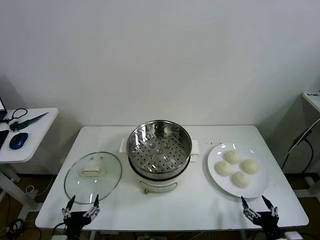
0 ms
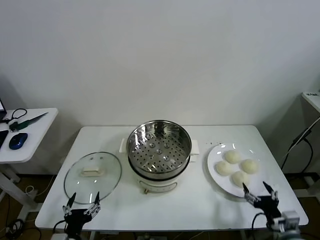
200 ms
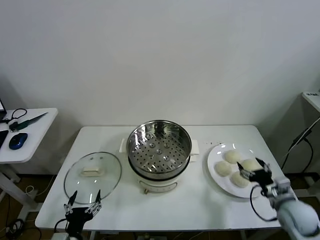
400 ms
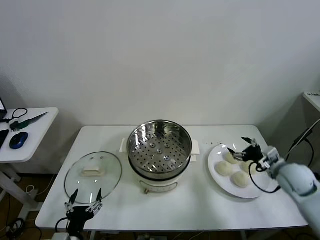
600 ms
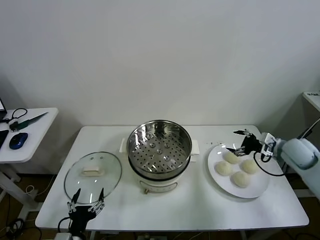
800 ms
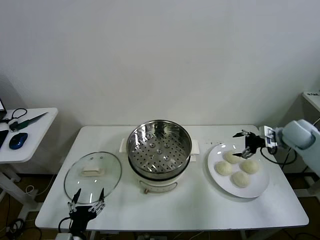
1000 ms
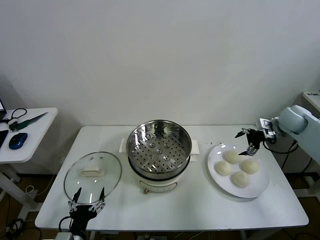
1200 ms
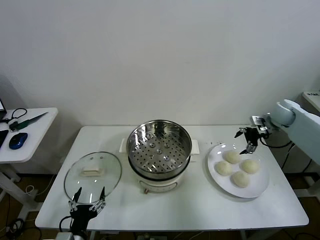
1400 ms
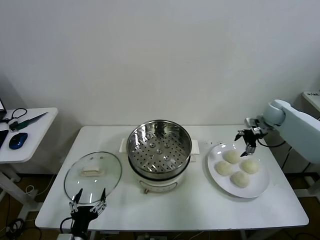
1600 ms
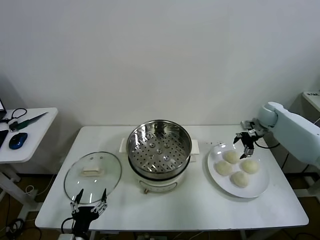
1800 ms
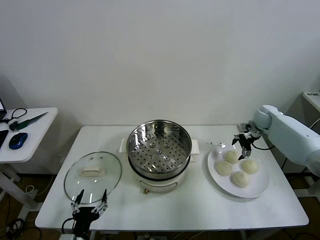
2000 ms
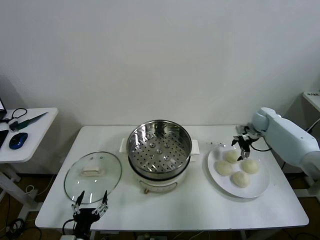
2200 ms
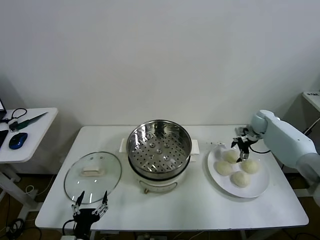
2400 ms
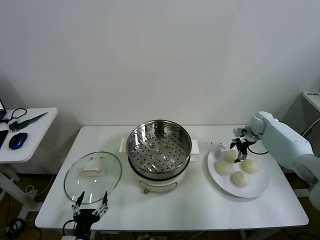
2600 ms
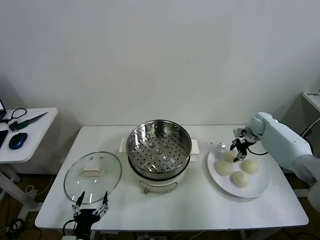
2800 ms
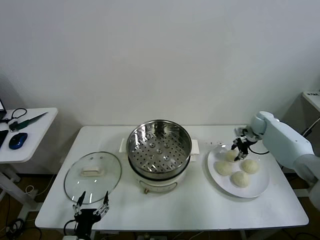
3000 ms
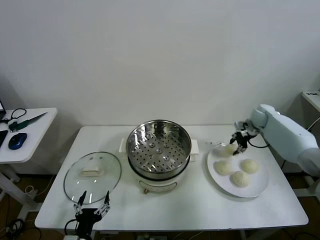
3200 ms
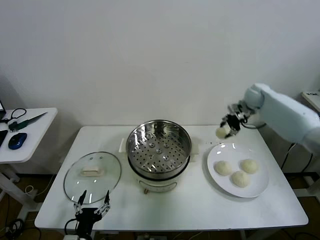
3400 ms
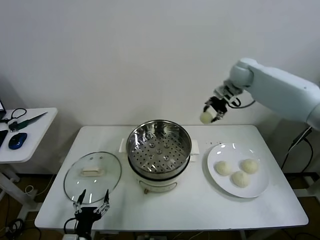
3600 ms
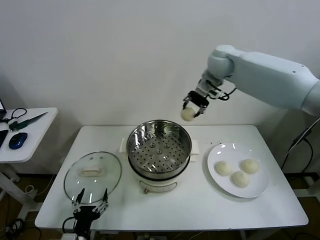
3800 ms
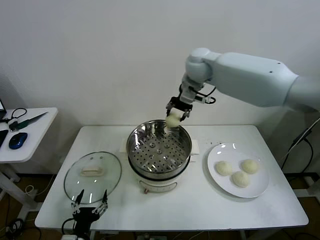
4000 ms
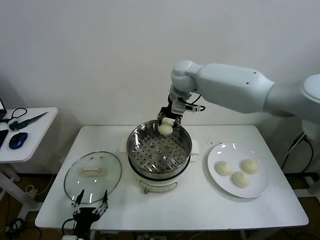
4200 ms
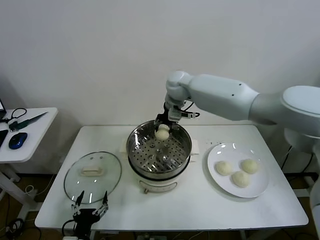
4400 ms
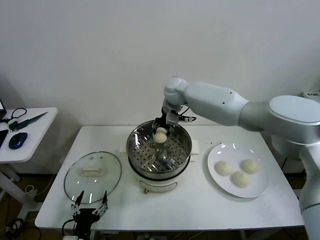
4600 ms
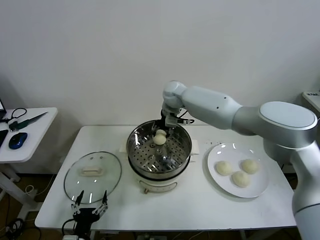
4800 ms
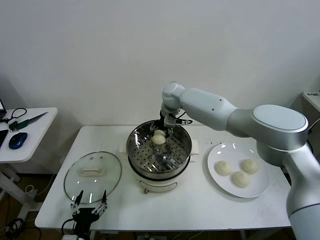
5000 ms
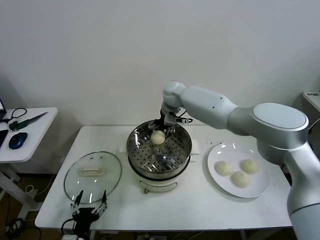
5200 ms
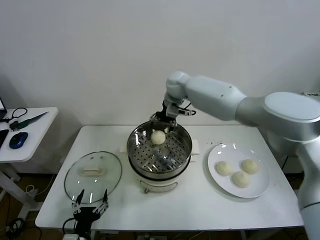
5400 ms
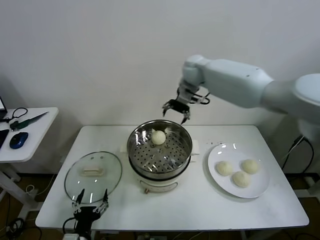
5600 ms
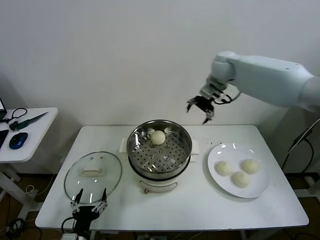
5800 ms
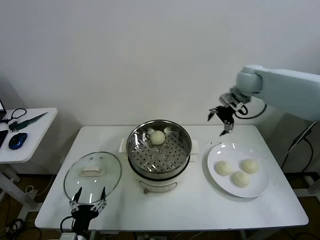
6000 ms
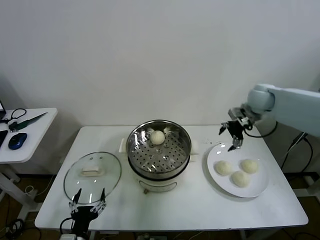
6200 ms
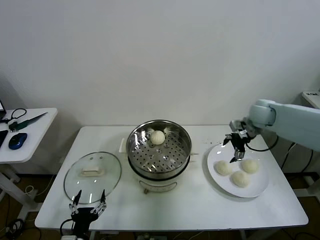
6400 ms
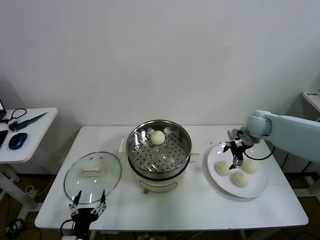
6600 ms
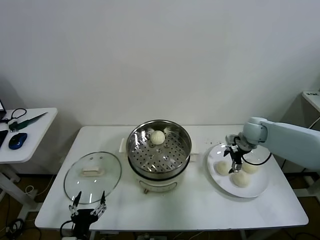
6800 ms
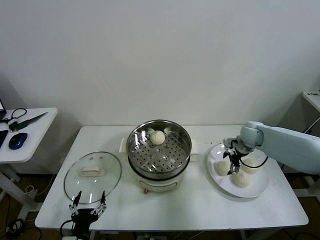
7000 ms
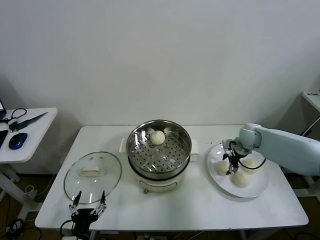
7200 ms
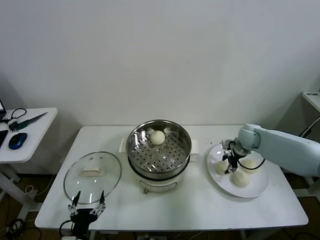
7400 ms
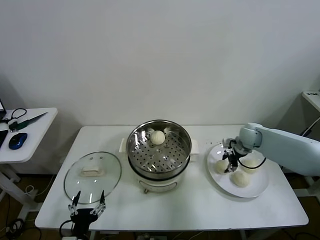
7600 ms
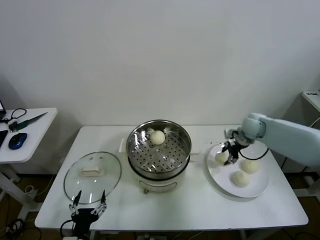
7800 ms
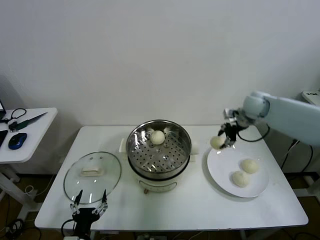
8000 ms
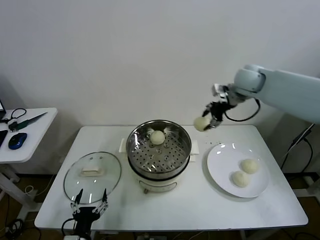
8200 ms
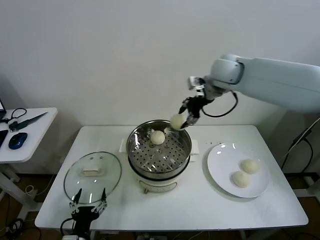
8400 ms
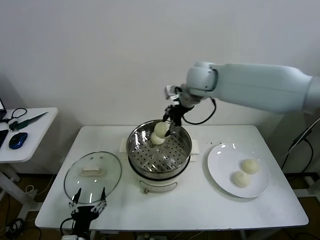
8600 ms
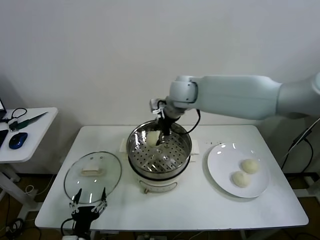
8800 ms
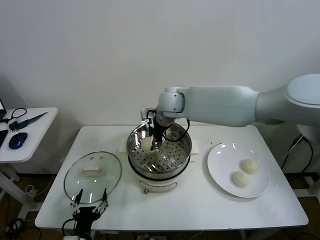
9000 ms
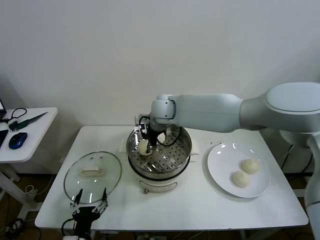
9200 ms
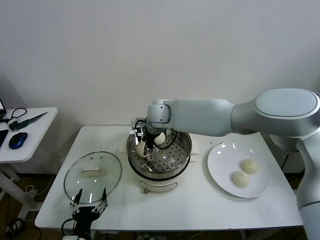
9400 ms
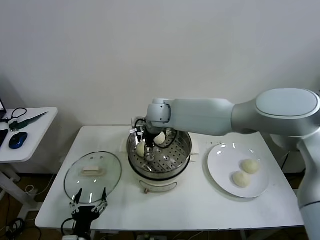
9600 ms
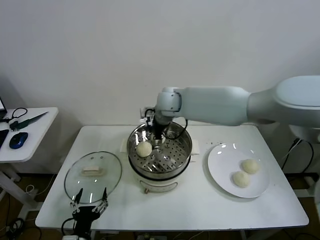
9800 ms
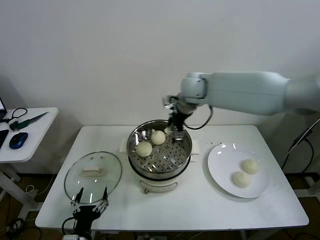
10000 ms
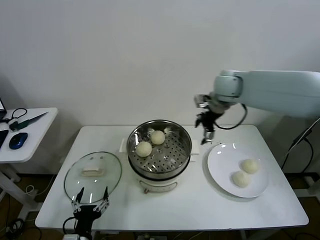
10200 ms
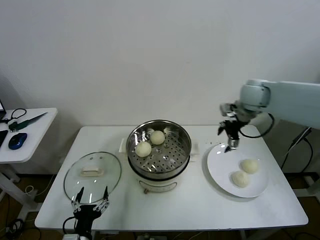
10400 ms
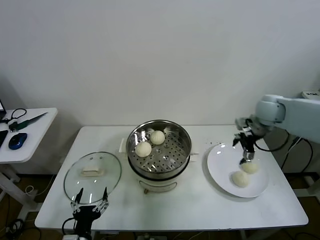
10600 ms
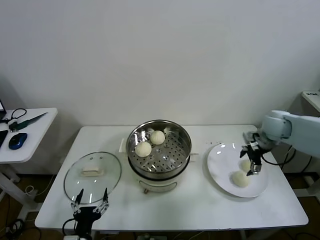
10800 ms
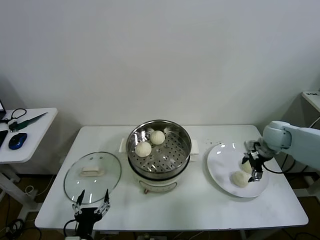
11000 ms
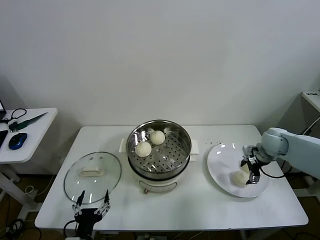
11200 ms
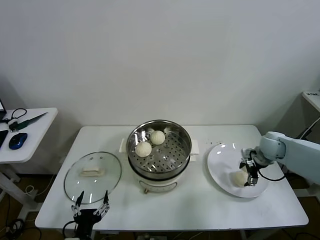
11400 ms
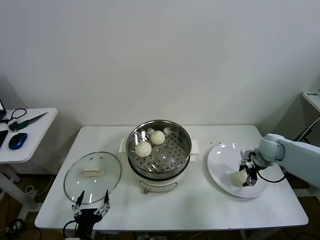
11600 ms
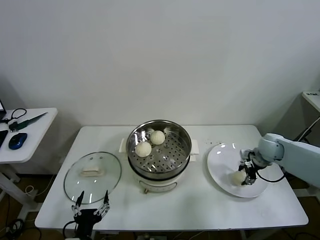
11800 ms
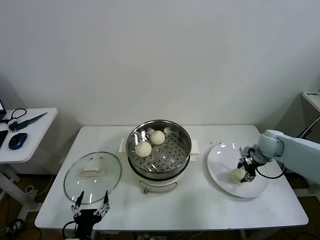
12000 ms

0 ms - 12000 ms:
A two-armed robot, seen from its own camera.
Task of the whole recording: take steamed baozi put them in steamer then cover it.
Step, 0 ms - 2800 ms: Grasp the baozi in the plate with right gripper.
Step, 3000 ms - 5000 ms: Place the baozi on the steamer with right gripper.
Step, 5400 ms - 7400 ms: Grasp the baozi in the plate with right gripper.
Step, 7600 ms - 9600 ms: Place the baozi on the steamer with right gripper.
Step, 9800 ms - 11800 ms: Grasp the baozi in the plate with right gripper.
1600 ms - 3000 ms: The right gripper moves downward, approximately 5 cm, and closes its fingers.
3000 ms - 4400 ms: The right gripper goes roughly 40 cm to the left and upward.
4400 ms - 6000 ms: The right gripper is displaced to the right by some 25 cm, and opens its fingers.
6000 ms - 7600 ms: The right gripper travels downward by approximately 20 cm, and closes its fingers.
7600 ms - 9000 ms: The right gripper moves to the left and upward, about 35 cm.
9000 ms - 10400 ms: The right gripper shifts about 30 cm to the right, and opens up.
10400 ms - 12000 ms: The right gripper travels downward and to the right by roughly 20 cm, and closes its fingers.

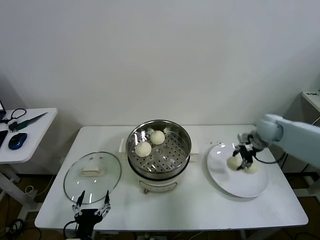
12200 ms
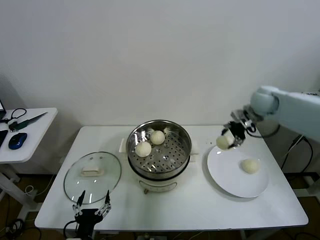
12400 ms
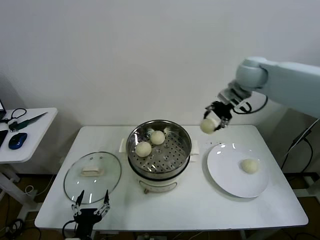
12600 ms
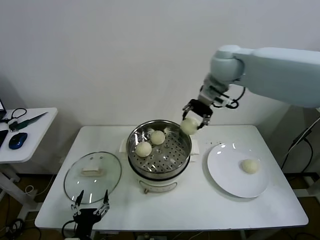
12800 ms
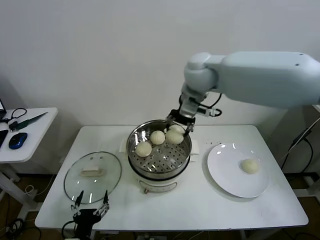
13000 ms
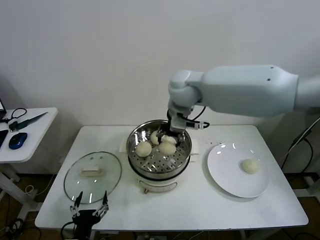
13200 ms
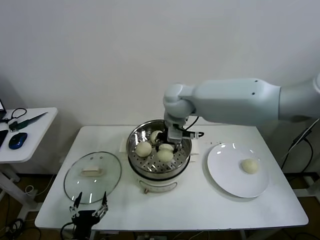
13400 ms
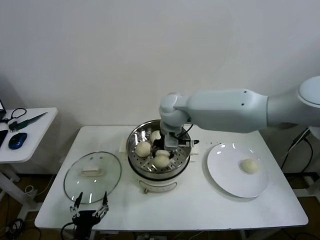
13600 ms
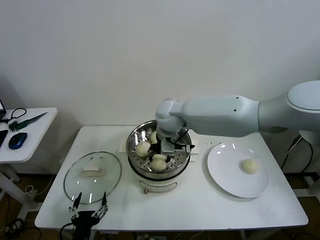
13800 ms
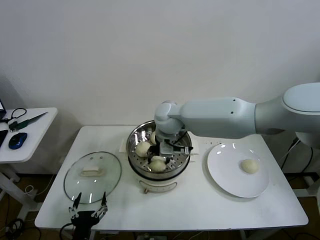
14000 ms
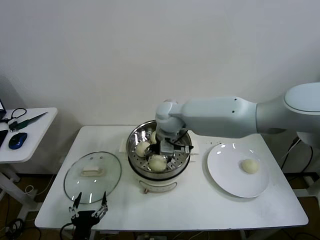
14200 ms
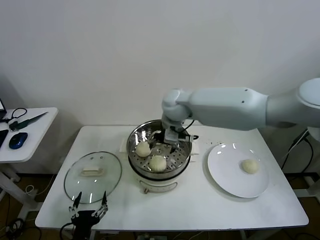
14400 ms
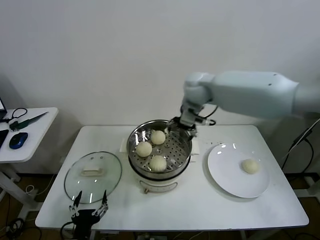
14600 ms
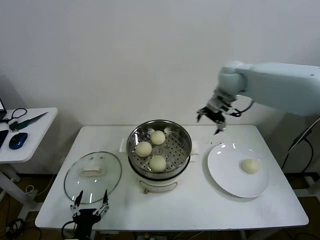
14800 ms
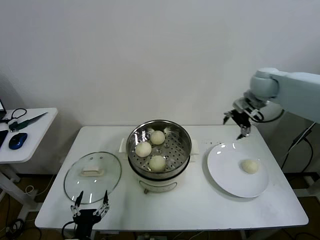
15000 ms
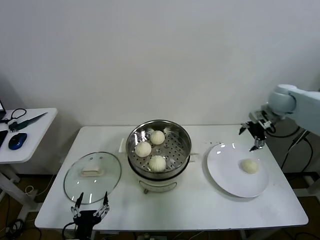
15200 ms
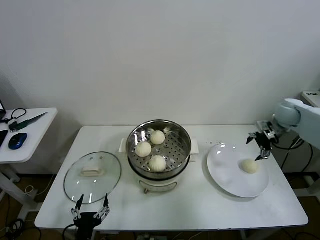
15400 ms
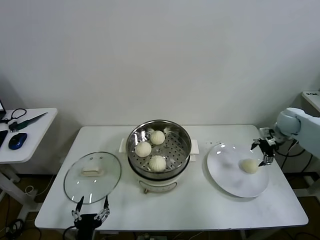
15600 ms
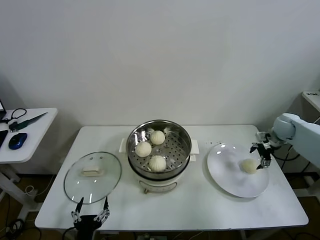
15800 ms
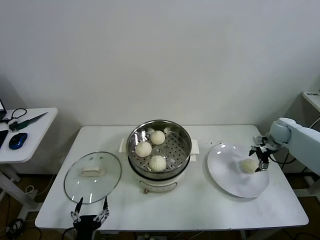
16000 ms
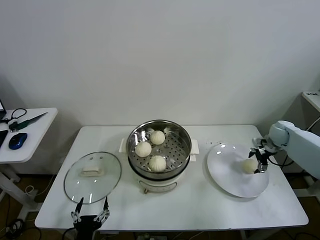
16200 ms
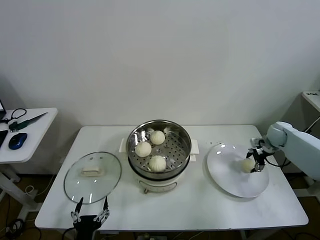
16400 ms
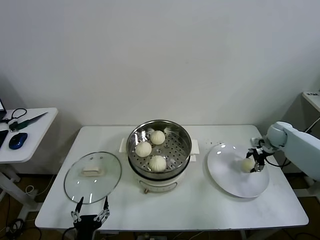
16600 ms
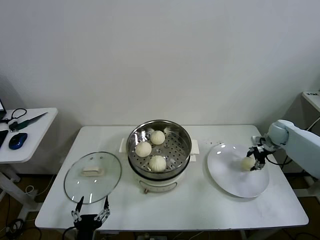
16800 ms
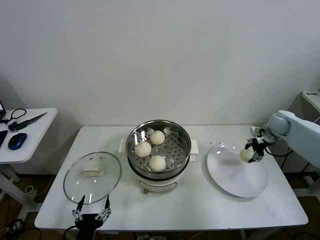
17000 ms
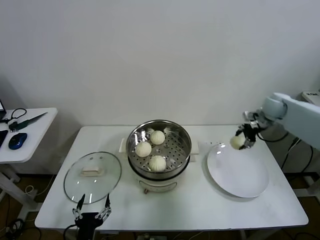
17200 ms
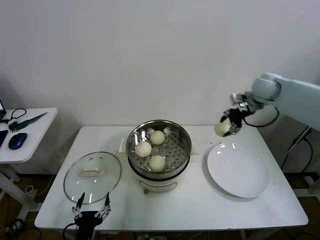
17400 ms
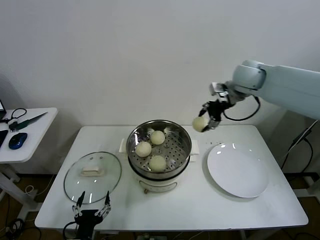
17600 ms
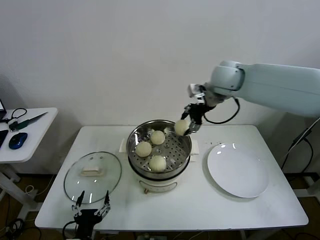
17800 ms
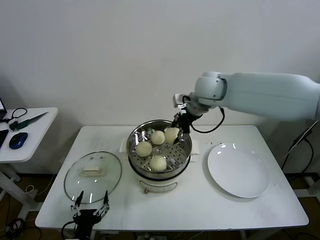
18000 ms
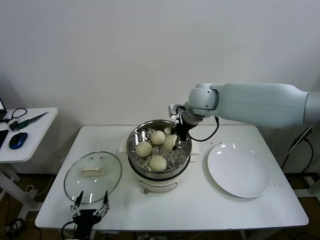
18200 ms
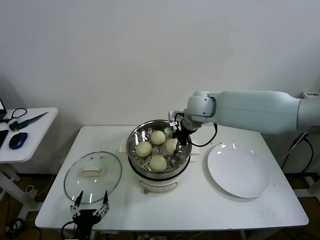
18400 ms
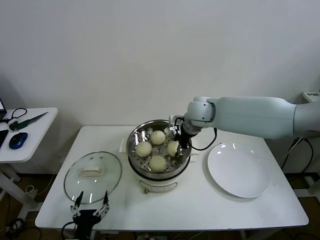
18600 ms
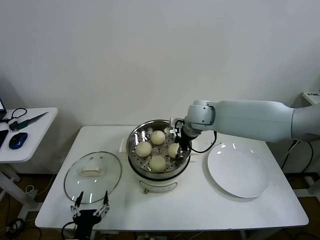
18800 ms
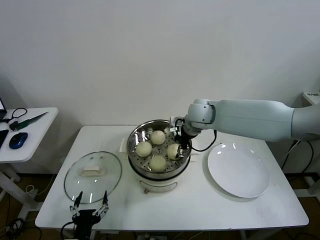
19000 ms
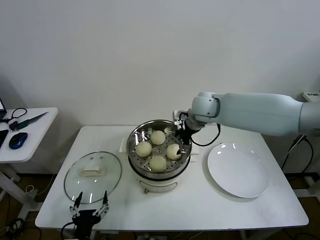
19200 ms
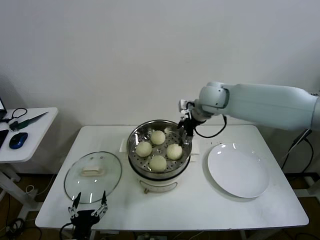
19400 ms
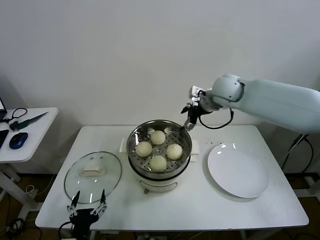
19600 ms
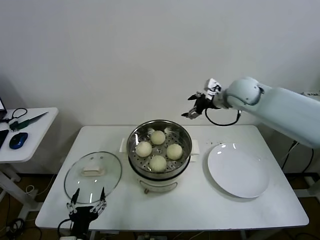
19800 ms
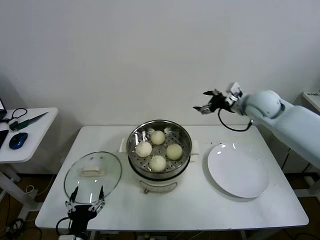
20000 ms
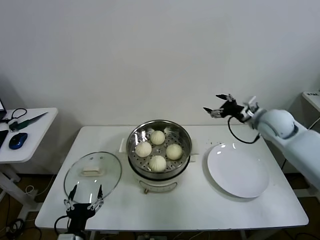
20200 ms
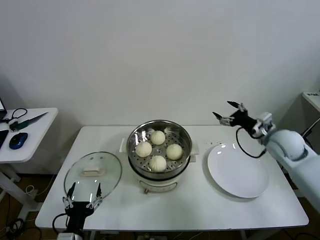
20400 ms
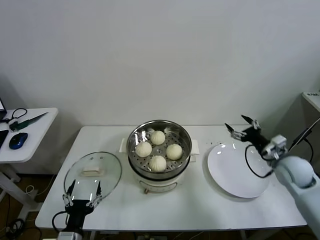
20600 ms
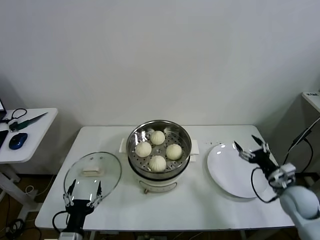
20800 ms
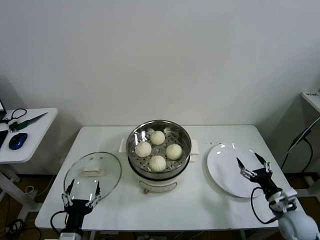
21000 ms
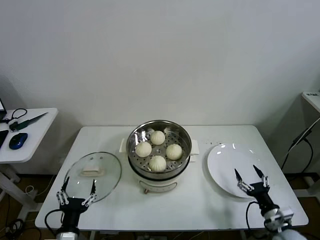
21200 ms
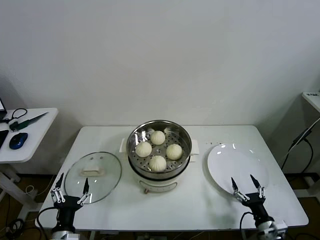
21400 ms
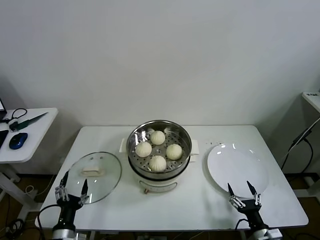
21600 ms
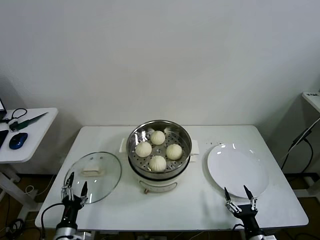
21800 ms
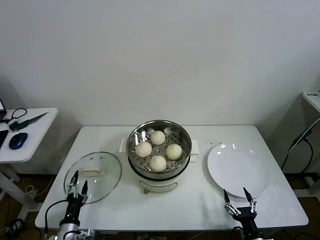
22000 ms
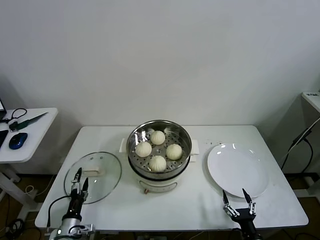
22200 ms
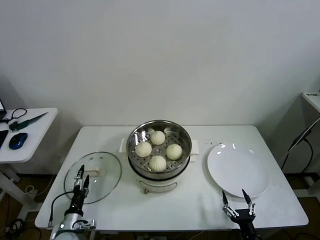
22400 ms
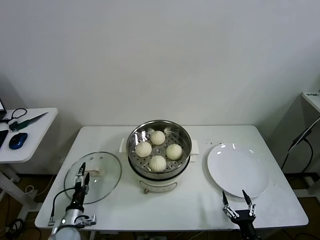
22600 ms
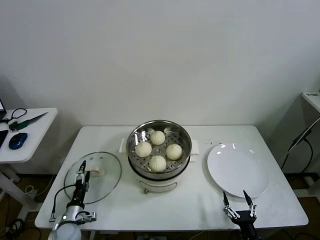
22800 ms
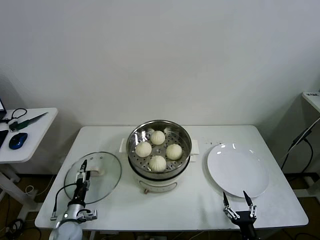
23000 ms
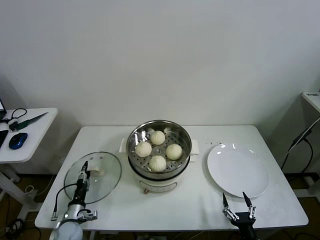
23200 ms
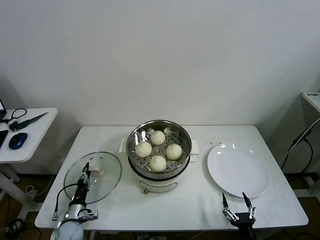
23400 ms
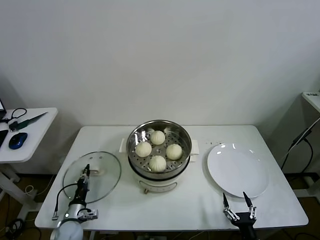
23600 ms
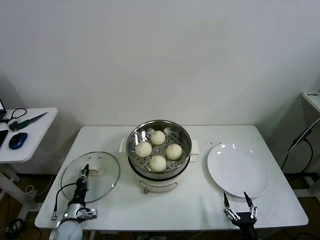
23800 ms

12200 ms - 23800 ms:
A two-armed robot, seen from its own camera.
Task of the whole recording: take steamed baozi put them in steamer then cover it.
Step, 12200 ms - 14200 ms: Place the baozi on the steamer with right gripper.
Step, 14400 ms - 16600 ms: Grasp the baozi in the plate with right gripper.
Step, 16800 ms - 19000 ms: Place the baozi on the steamer with right gripper.
Step, 19200 ms - 23600 ms: Grasp the pot lid with left gripper.
12200 ms - 13600 ms: The right gripper heads to the left, covering some 35 cm.
13600 ms - 15000 ms: The right gripper moves to the right, approximately 30 cm, and opens its fingers.
15000 ms - 16600 ms: The right gripper moves downward and to the right, approximately 25 cm, and closes up.
16600 ms - 18000 ms: The right gripper is displaced to the left and upward by approximately 40 cm.
18000 ms - 19400 ms: The right gripper opens its fingers.
19400 ms - 21000 ms: The right gripper shifts some 50 cm downward, backward and to the right.
21000 ms - 22400 ms: The right gripper heads backward, to the left and downward, covering some 20 cm. Meanwhile the left gripper heads downward, forward and to the left, covering some 15 cm.
22400 ms - 23800 ms: The left gripper shifts by some 5 cm, and closes its fingers.
